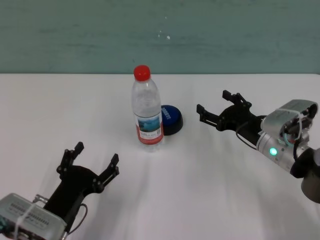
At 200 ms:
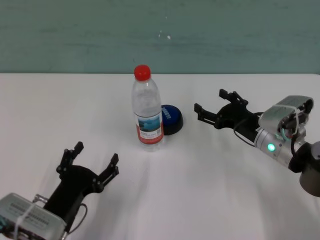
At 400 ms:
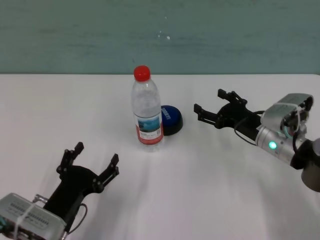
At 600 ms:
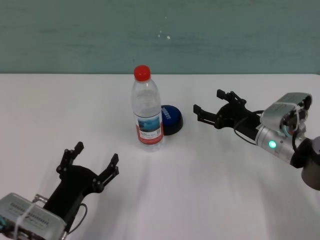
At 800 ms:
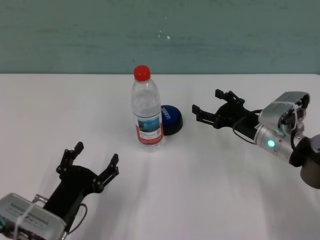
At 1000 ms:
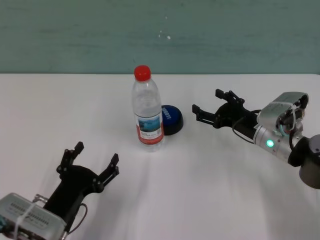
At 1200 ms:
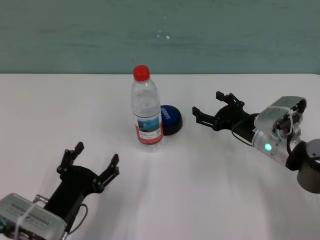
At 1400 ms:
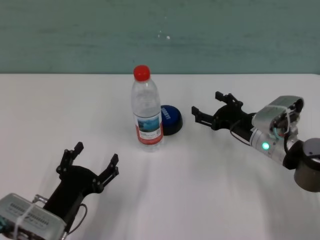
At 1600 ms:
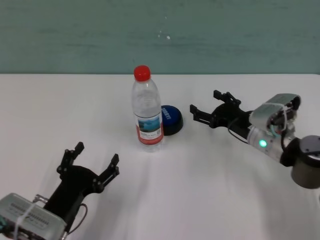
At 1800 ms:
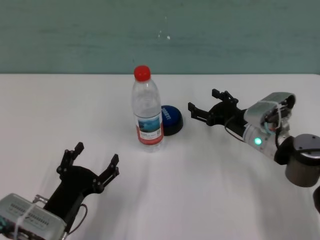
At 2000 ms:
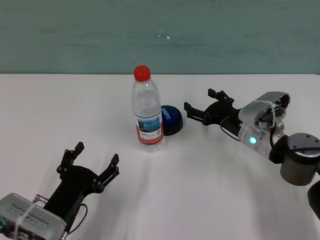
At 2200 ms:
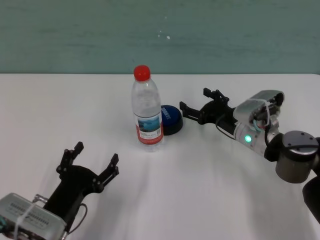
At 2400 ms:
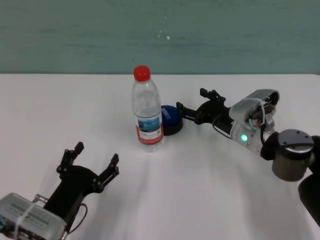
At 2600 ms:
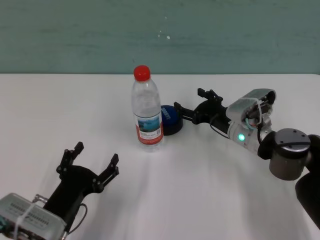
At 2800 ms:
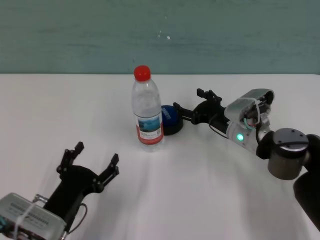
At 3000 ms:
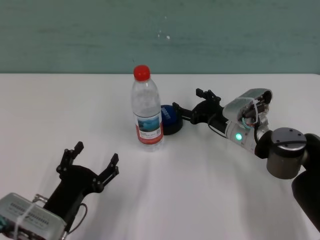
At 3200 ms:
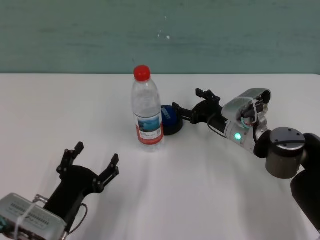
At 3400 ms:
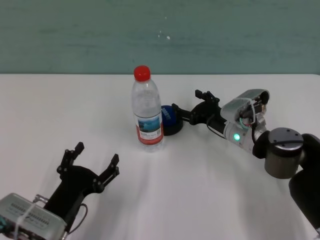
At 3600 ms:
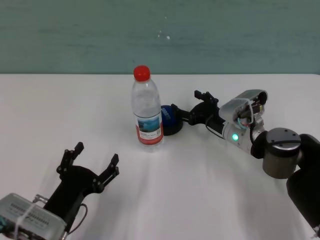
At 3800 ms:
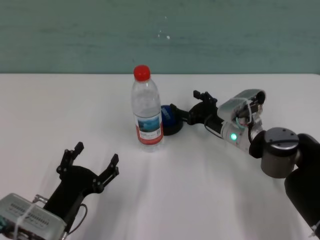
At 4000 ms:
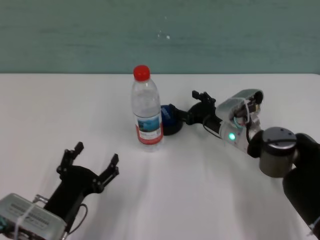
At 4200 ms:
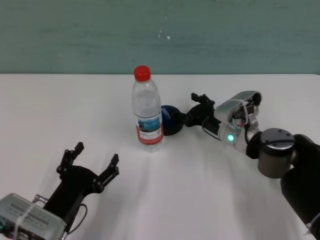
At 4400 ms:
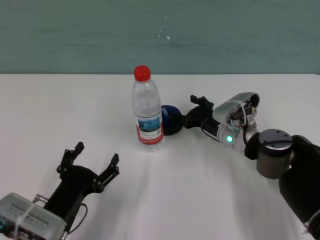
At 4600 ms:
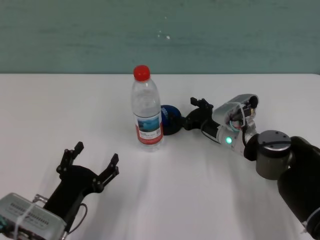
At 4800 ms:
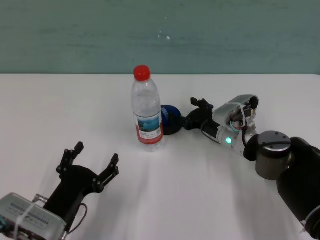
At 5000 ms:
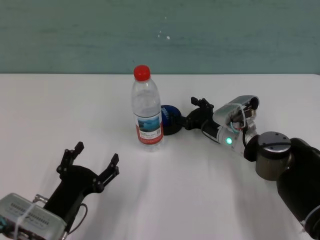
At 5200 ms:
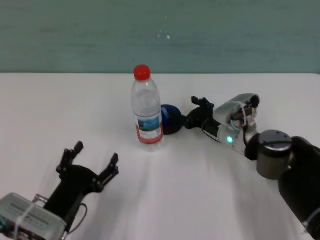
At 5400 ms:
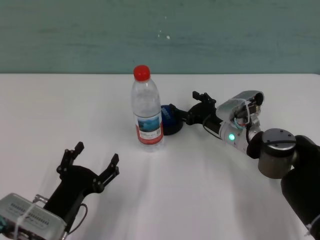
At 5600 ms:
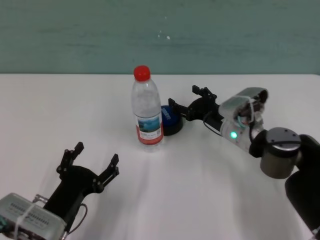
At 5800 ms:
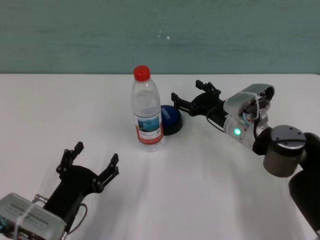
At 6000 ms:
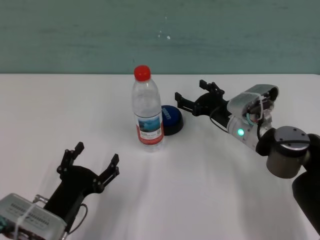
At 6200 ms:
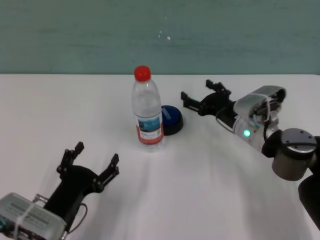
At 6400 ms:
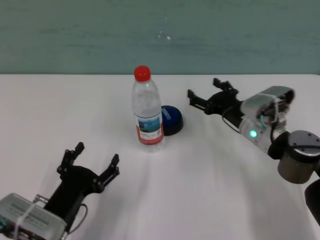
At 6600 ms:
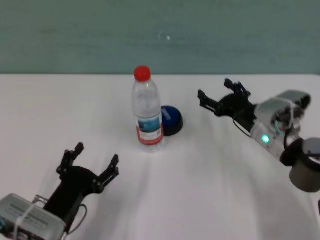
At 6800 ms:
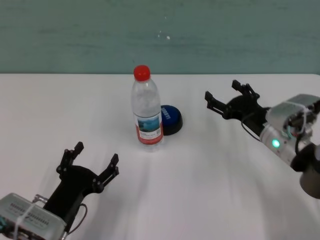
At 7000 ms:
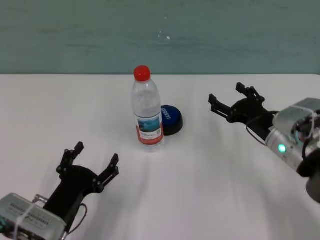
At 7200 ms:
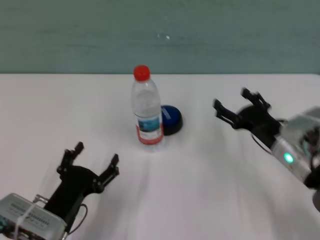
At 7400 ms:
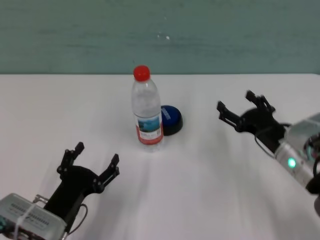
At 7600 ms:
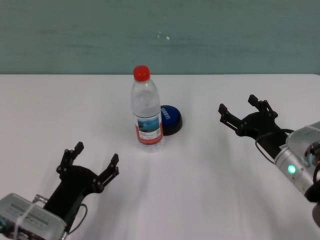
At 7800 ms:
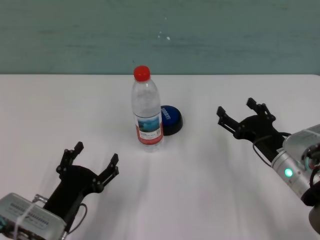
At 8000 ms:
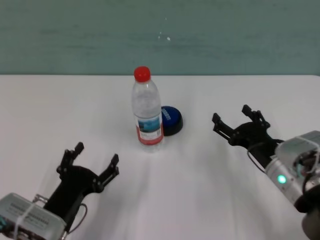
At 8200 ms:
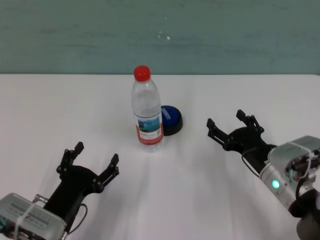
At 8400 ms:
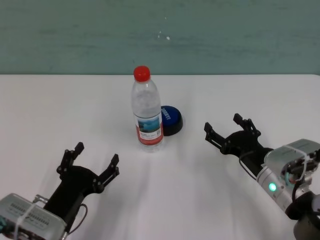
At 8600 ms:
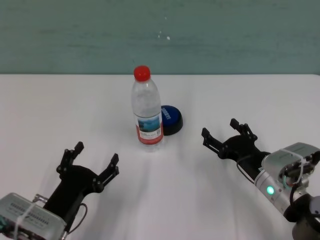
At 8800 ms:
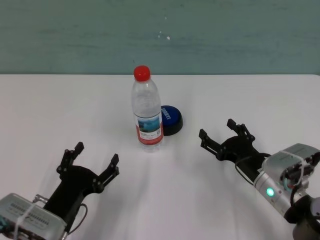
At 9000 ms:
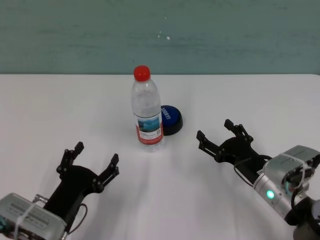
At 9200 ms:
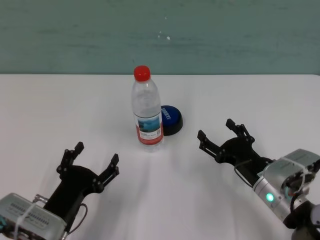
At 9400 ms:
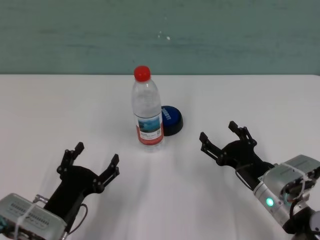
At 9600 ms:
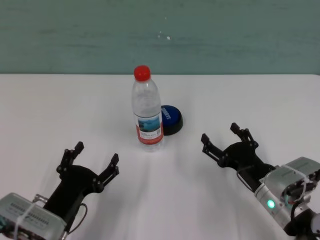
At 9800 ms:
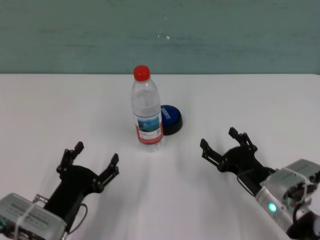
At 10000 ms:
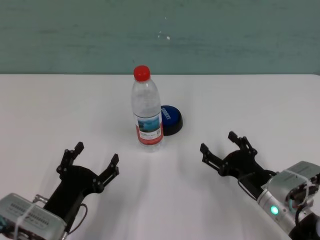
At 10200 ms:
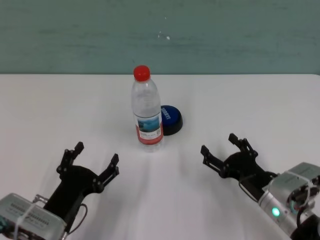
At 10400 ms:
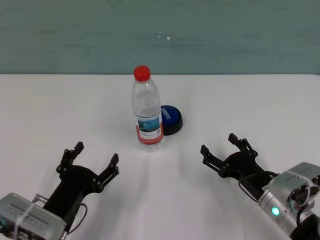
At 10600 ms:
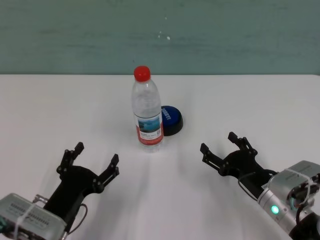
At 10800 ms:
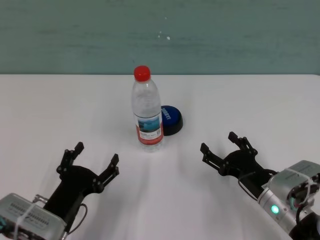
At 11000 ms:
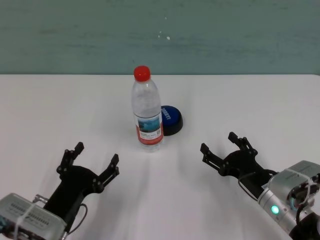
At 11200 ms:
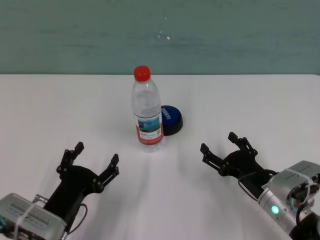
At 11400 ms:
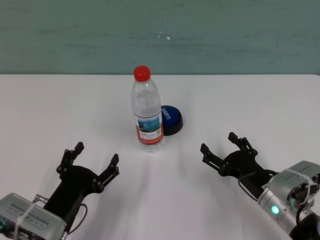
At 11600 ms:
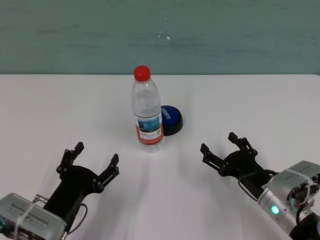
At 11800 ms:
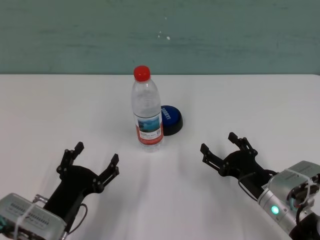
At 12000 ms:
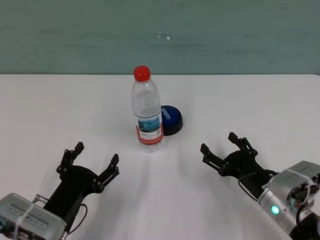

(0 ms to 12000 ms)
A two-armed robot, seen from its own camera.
Task of the whole recording: after avoiding the water bottle on the table, press the button.
Step, 0 ms - 5400 ms: Press the button blocked by the bottle with right gripper.

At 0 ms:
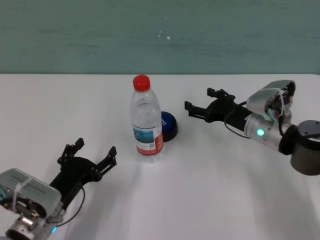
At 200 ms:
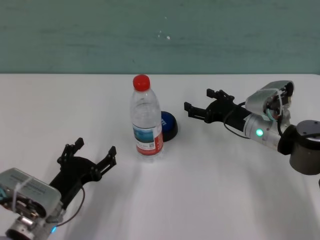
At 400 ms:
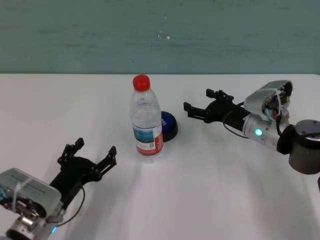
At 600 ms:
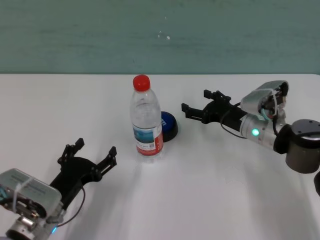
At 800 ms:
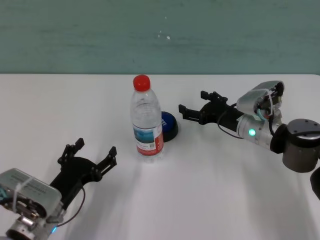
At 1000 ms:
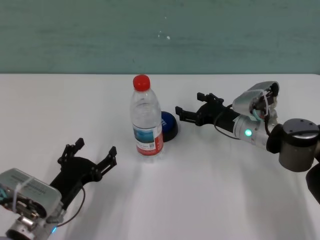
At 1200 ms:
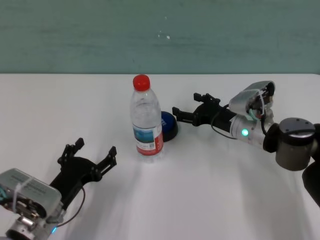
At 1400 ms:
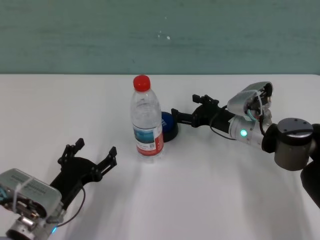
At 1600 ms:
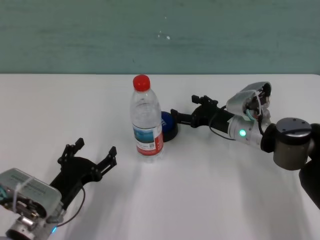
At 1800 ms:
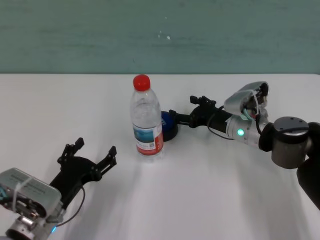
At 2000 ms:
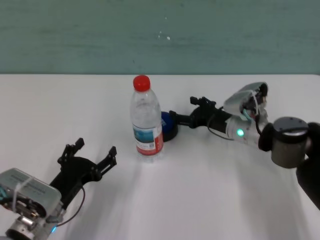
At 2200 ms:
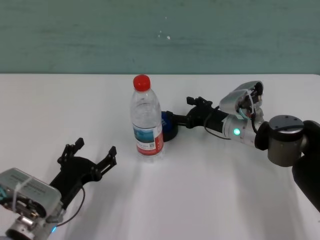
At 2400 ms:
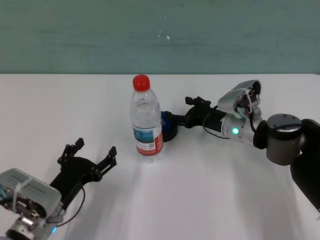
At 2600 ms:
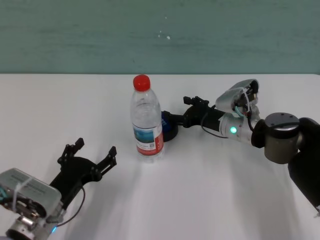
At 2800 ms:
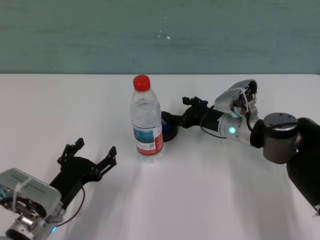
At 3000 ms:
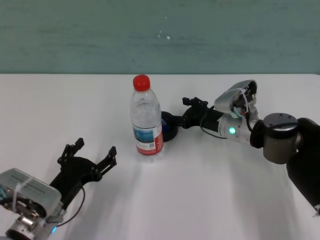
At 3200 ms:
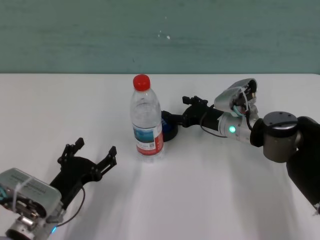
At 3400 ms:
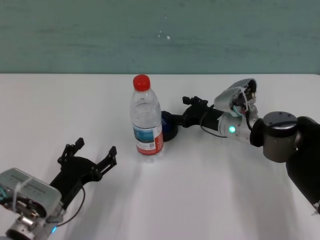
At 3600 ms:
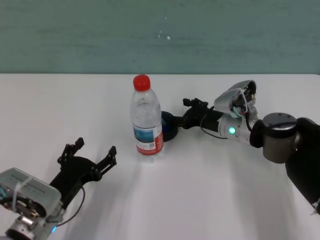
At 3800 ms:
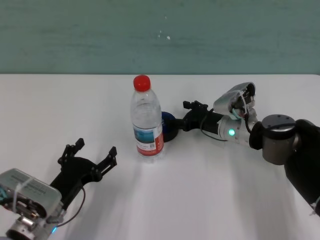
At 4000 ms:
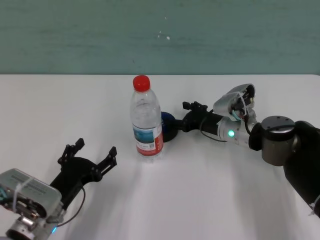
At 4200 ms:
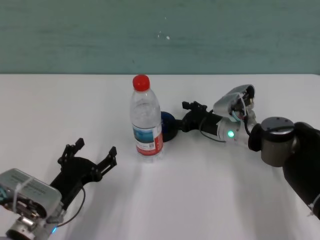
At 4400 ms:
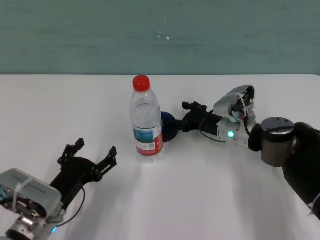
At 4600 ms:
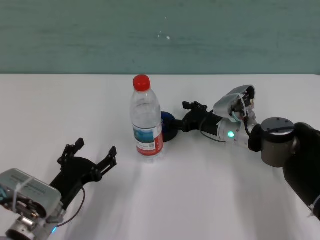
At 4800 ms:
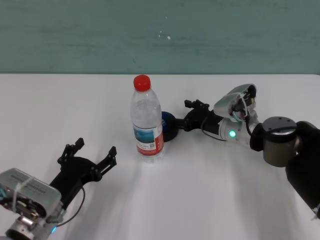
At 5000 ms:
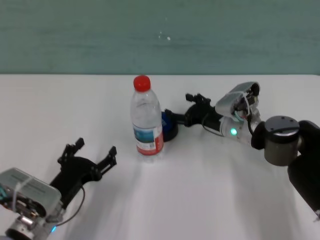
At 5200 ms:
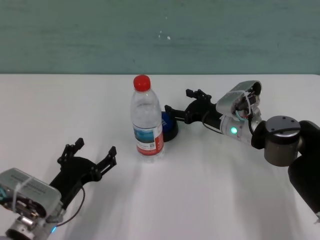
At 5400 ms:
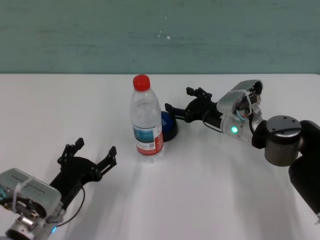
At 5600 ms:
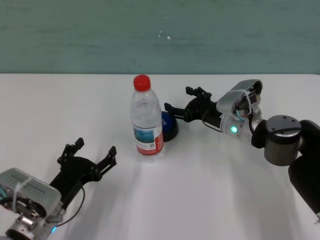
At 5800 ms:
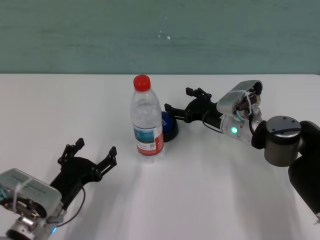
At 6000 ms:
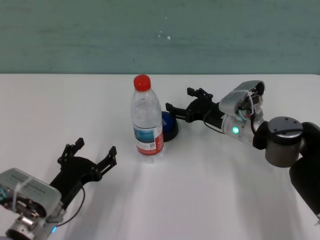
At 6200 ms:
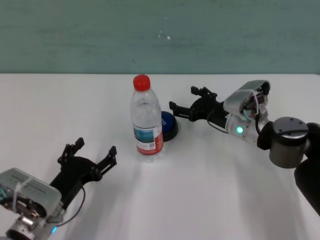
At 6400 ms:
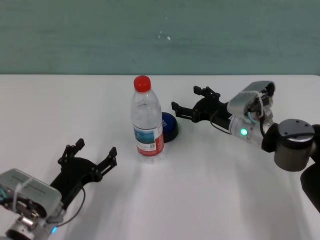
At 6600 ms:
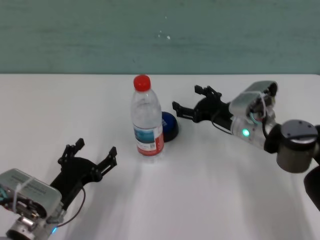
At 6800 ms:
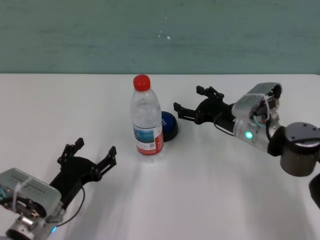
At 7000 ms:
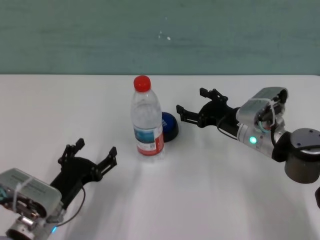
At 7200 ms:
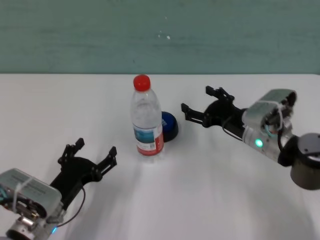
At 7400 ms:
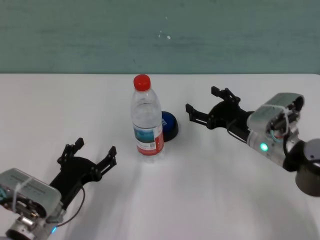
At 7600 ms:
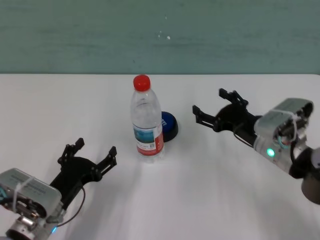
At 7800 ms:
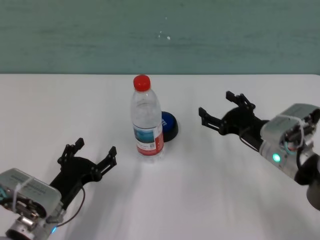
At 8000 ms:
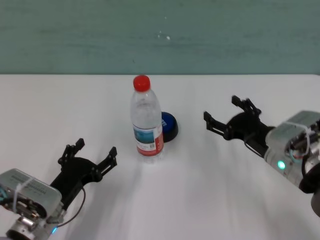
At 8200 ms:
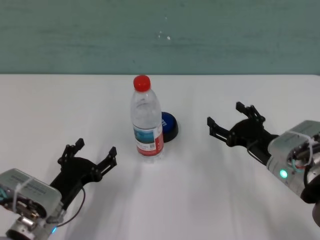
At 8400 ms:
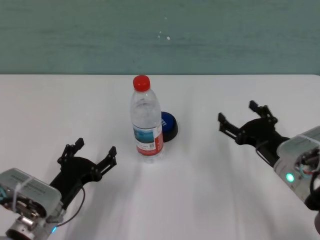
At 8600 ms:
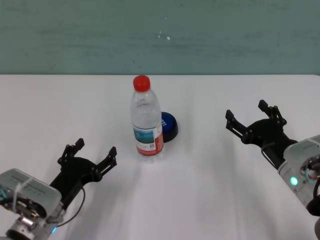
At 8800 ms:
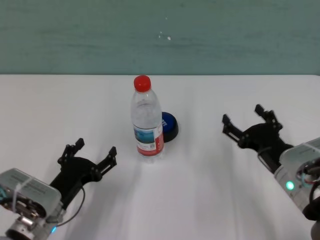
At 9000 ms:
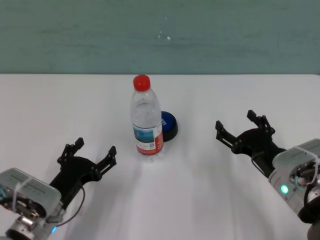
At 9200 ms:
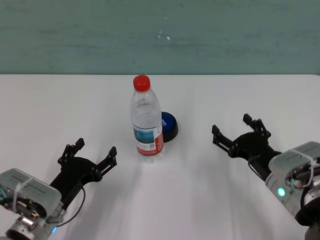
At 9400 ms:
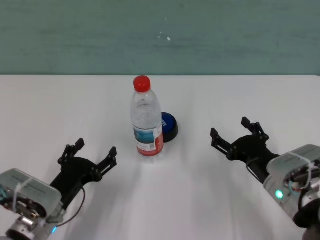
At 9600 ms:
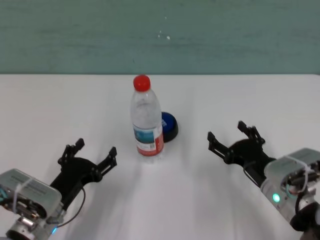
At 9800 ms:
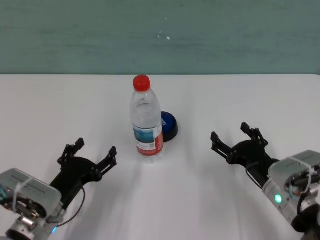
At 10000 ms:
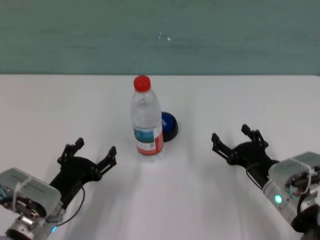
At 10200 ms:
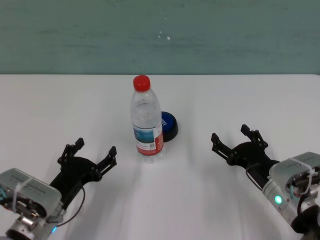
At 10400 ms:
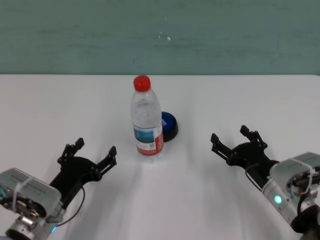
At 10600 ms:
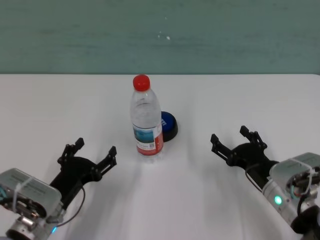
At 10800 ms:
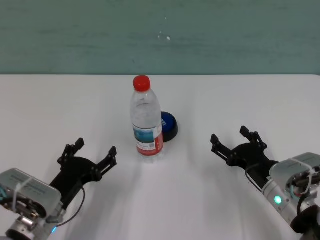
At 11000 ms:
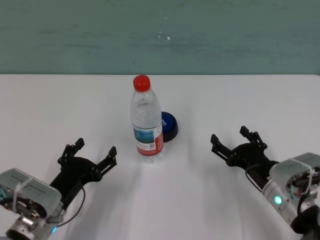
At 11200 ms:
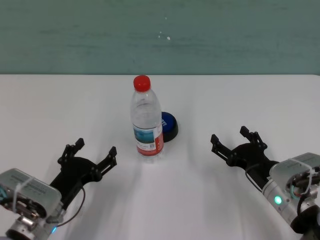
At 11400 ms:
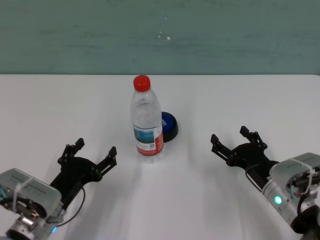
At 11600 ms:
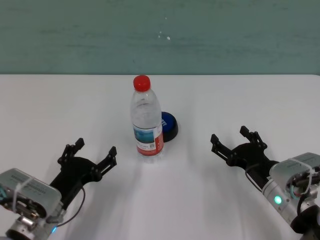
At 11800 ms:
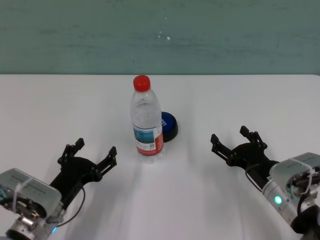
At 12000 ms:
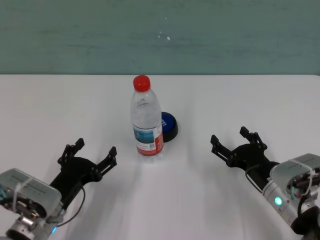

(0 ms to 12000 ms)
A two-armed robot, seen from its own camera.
Task of the whole recording: after avoiding the water bottle on the table, press the button.
Step, 0 ms - 5000 ms: Press the button blocked by the bottle with right gripper.
